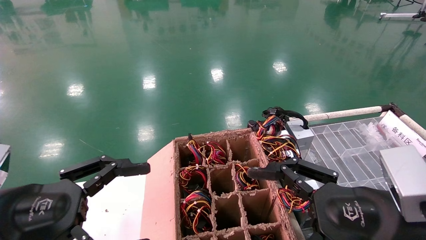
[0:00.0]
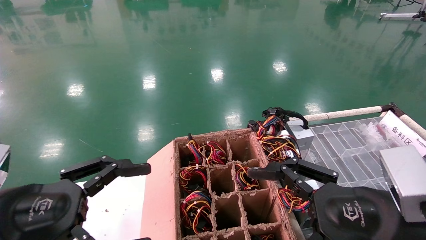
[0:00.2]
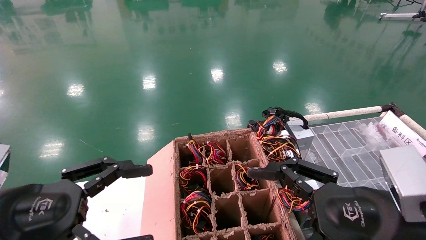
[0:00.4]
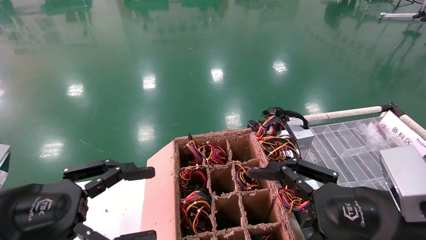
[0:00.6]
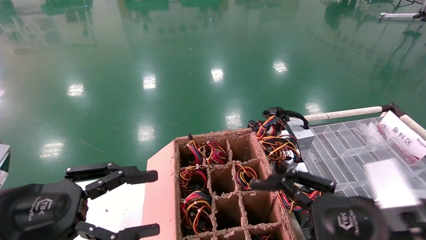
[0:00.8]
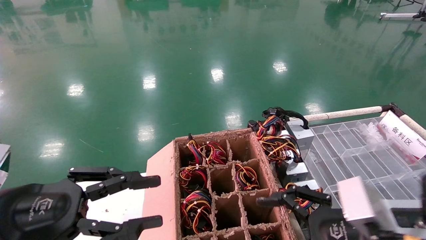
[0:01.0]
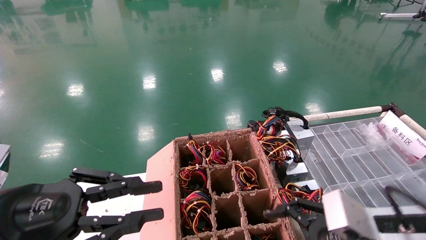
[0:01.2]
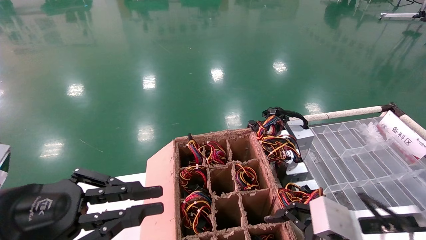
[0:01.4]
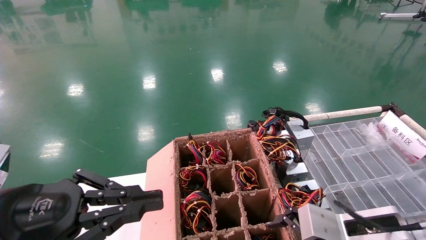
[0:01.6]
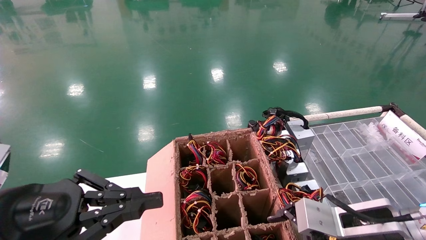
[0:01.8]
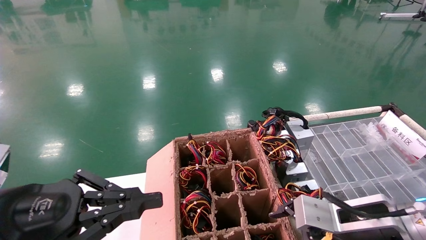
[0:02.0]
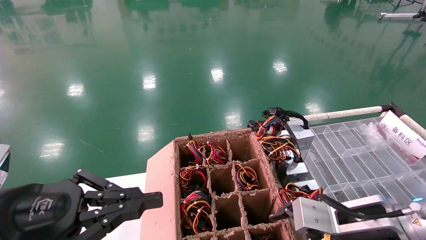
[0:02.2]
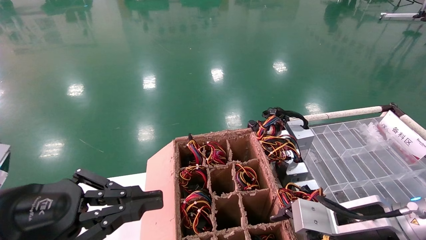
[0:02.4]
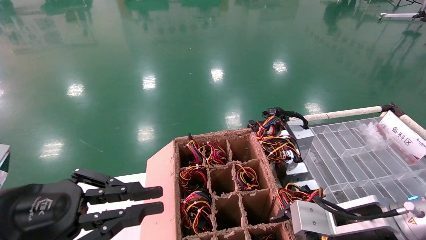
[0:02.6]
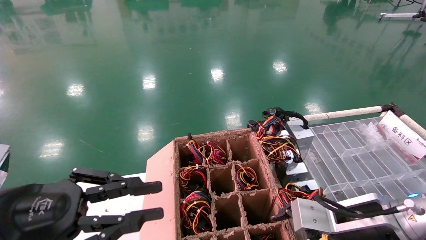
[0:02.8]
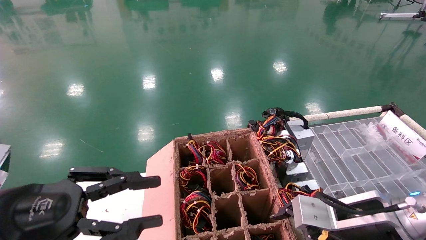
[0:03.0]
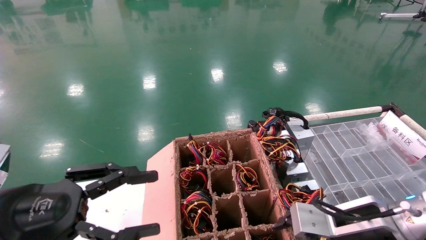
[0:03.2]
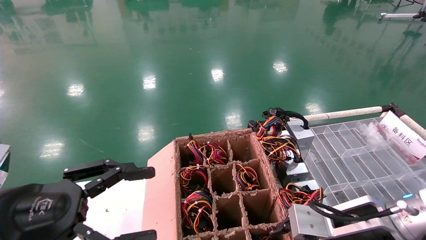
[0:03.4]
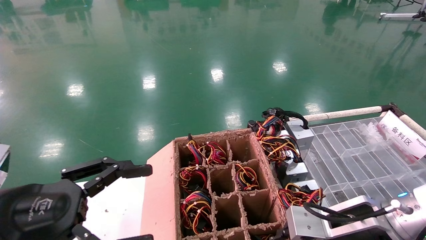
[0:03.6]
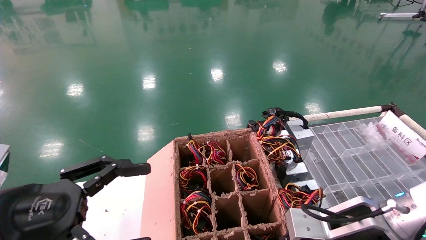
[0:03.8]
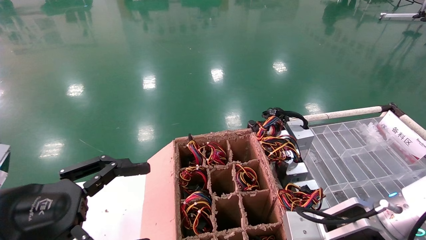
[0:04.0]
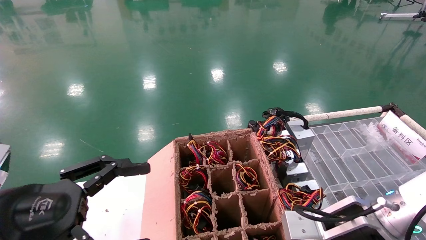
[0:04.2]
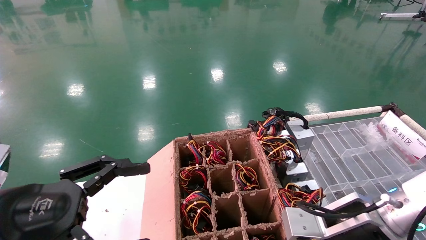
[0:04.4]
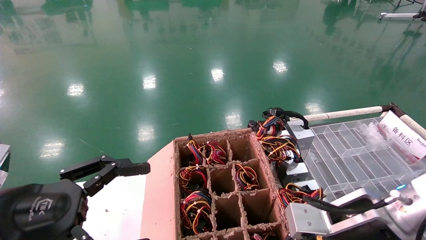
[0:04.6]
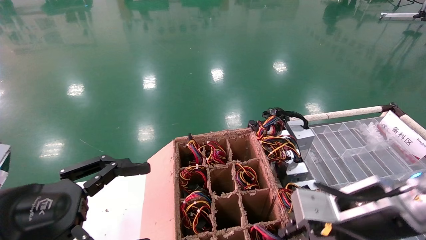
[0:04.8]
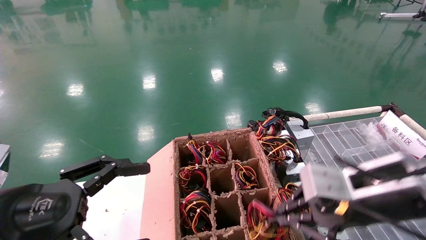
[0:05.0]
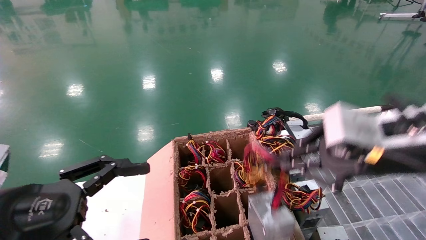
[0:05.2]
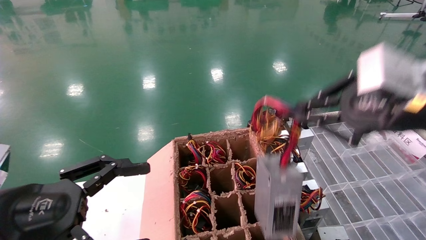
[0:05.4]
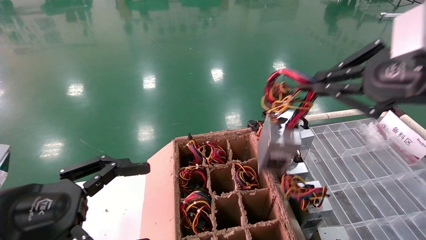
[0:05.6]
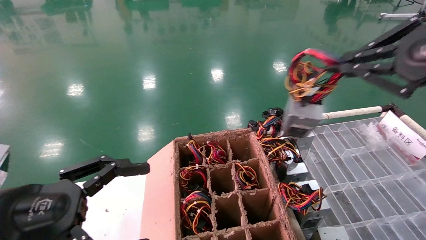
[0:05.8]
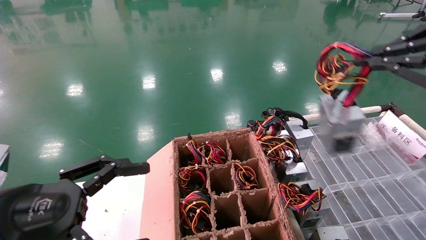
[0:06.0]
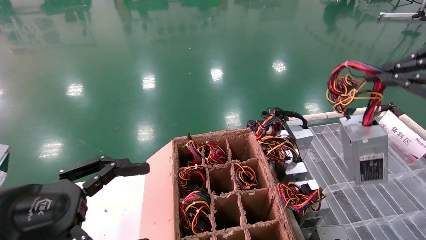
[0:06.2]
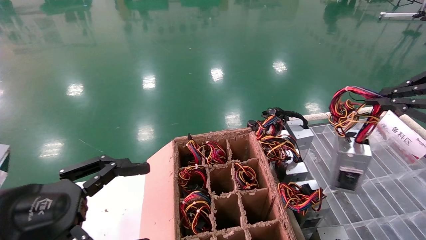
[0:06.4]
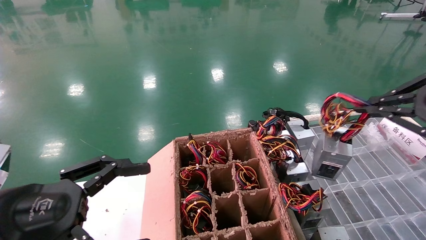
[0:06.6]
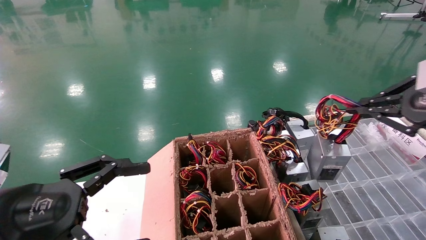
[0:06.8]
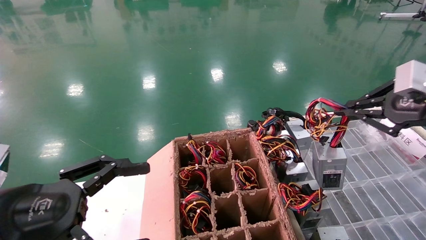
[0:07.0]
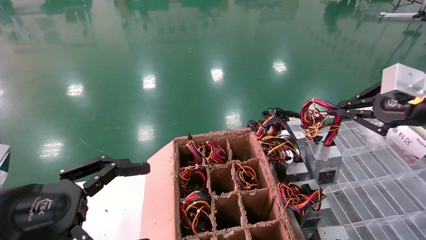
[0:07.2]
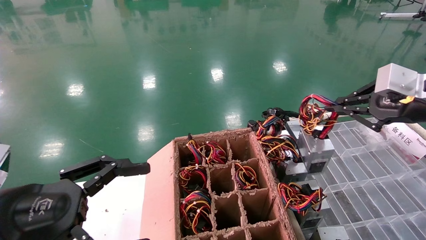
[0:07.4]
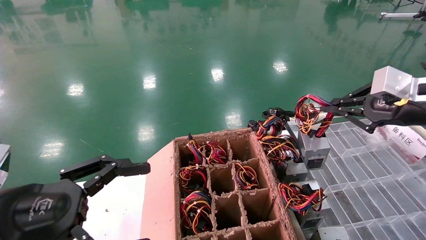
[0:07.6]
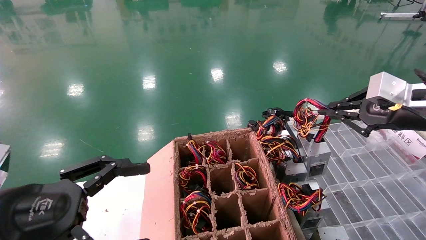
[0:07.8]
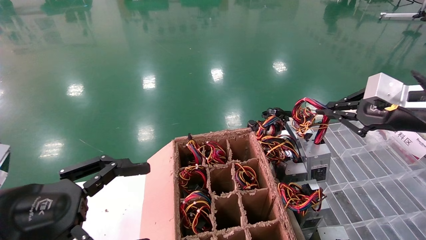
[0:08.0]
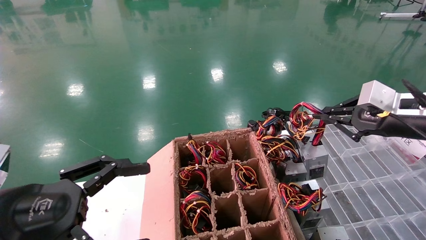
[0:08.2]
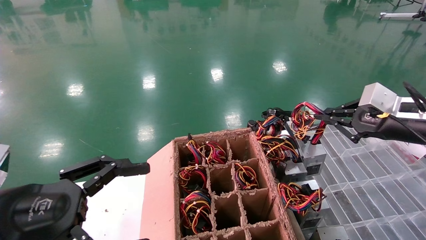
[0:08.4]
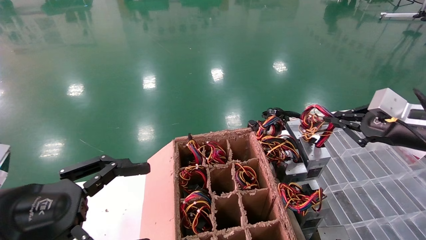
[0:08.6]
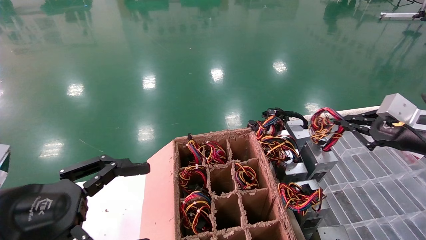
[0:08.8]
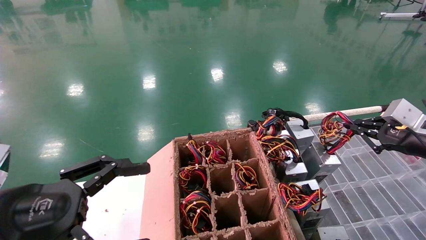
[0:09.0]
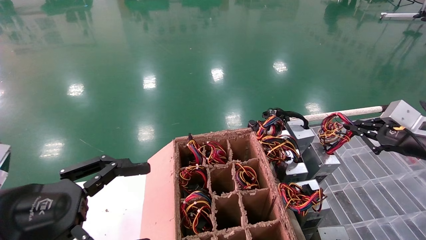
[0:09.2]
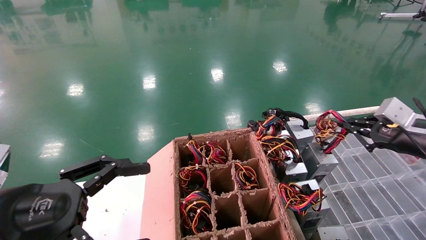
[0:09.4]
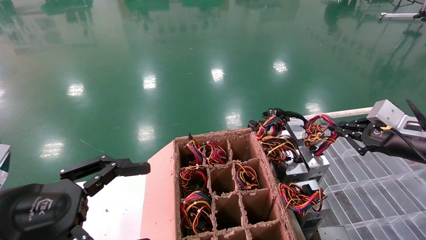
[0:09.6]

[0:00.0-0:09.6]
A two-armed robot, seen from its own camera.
Step, 0:01.8 to 0:04.0: Grab and lift the power supply from the large box.
0:00.0 to 0:01.6: The left gripper closes up. The right gripper goes some 10 cm forward and downward.
0:01.6 to 0:03.2: The left gripper opens up.
0:03.2 to 0:04.8: The right gripper is displaced upward by about 5 cm, and closes its fingers; the left gripper opens.
0:04.8 to 0:06.4: The right gripper heads to the right and upward, covering approximately 25 cm.
0:06.4 to 0:08.0: The right gripper travels forward and downward by about 10 cm.
0:08.0 to 0:09.6: The right gripper is displaced downward by some 10 cm.

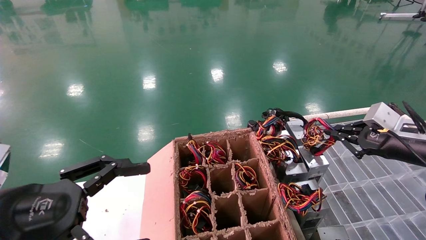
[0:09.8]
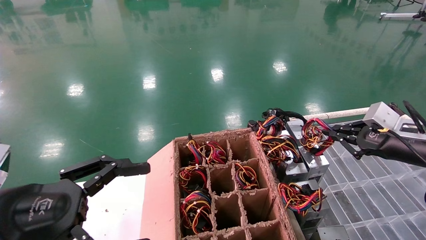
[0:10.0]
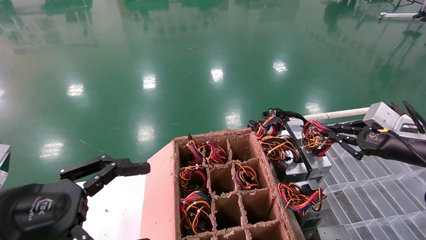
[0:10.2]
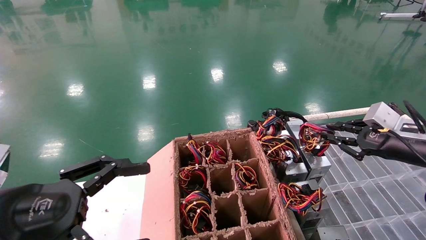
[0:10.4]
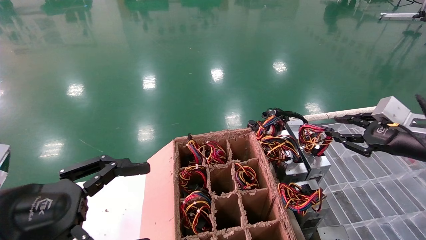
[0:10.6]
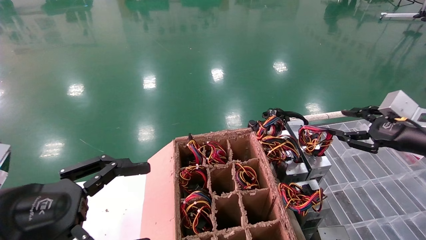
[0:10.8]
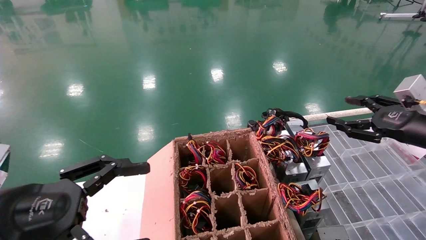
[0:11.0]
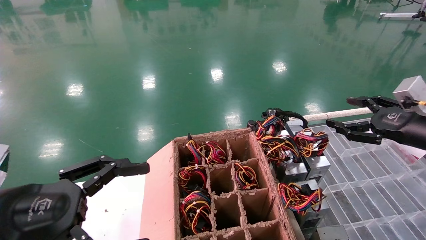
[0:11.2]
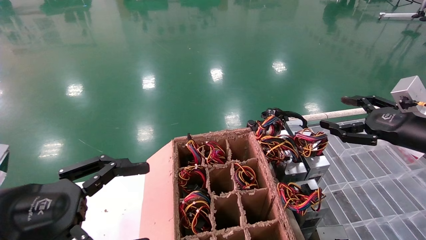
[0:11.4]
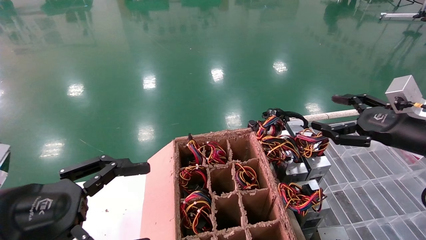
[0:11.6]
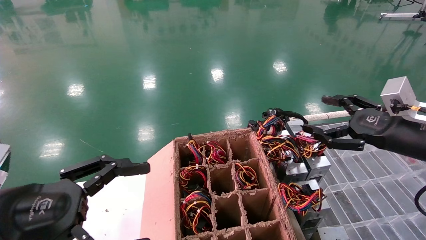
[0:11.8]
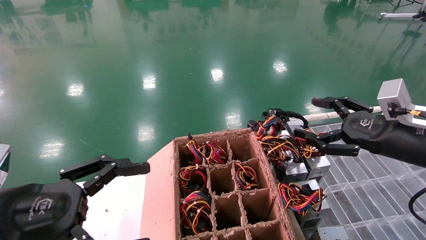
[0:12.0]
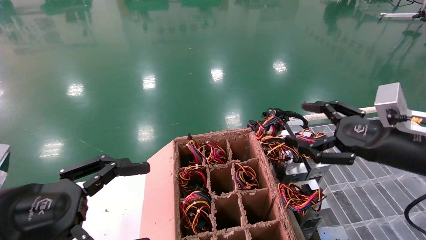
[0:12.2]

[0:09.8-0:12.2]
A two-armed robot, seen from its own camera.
0:09.8 to 0:11.0: The right gripper opens its fingers.
0:11.0 to 0:12.2: The right gripper is displaced to the left by approximately 10 cm, and opens its fingers.
